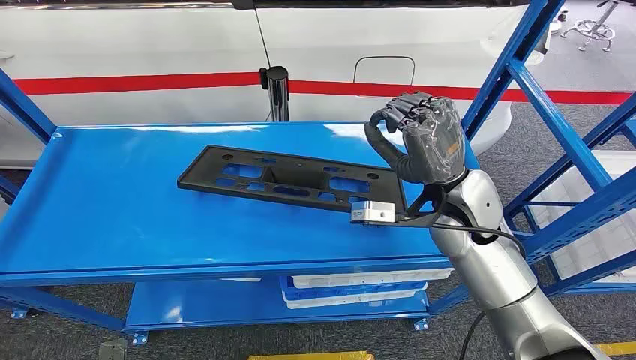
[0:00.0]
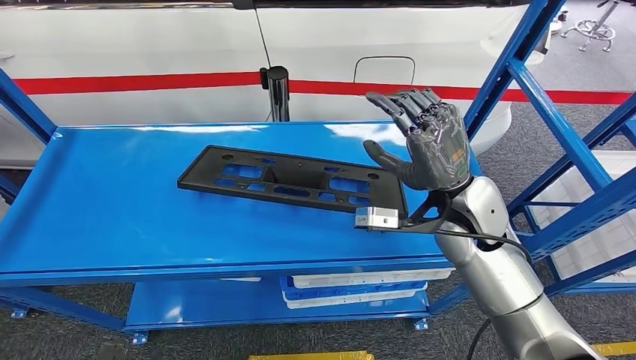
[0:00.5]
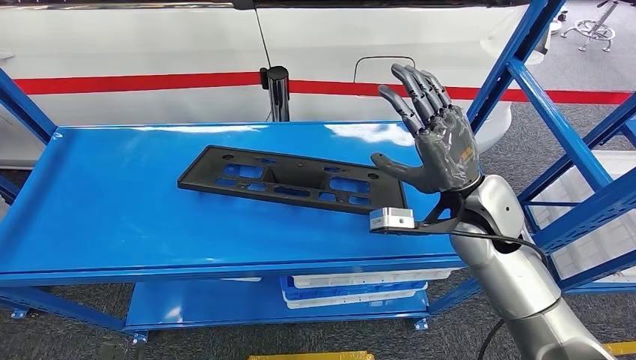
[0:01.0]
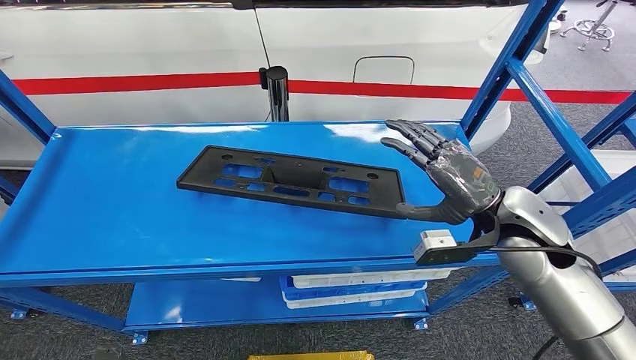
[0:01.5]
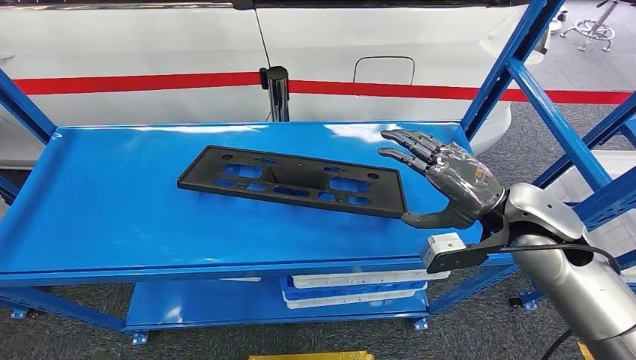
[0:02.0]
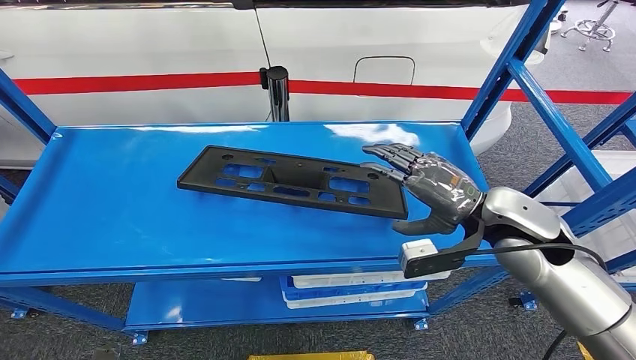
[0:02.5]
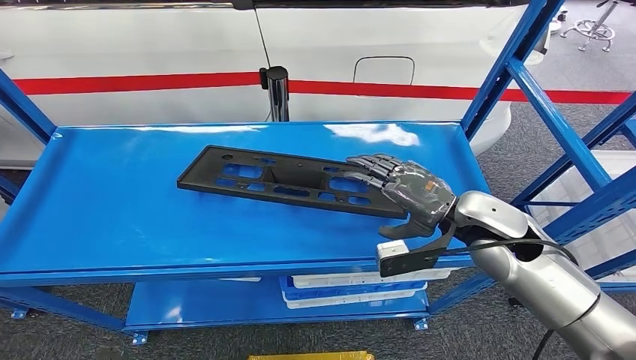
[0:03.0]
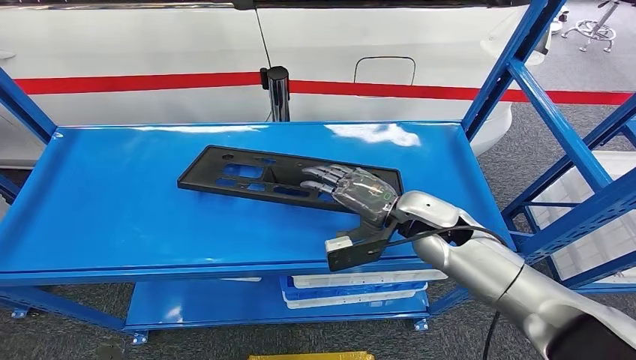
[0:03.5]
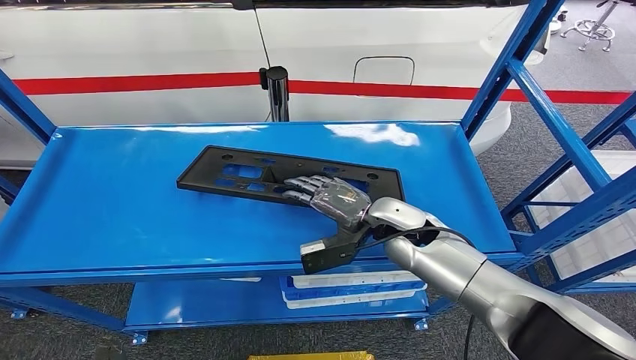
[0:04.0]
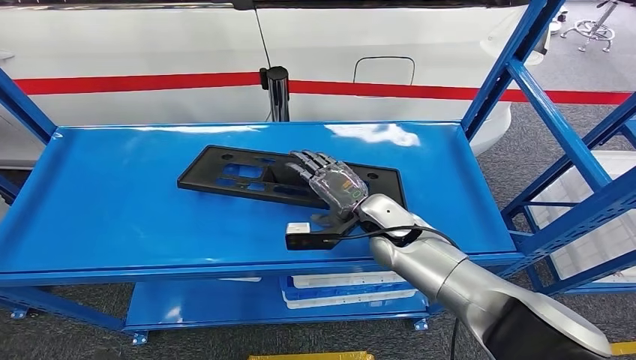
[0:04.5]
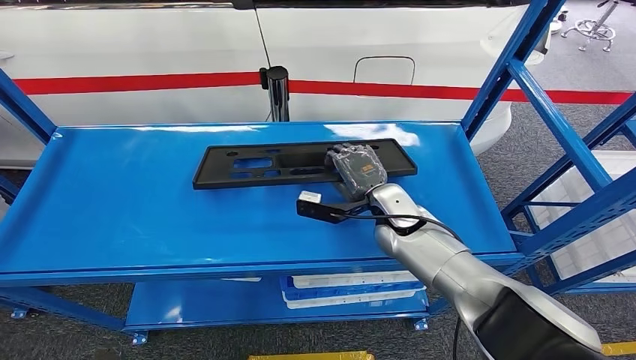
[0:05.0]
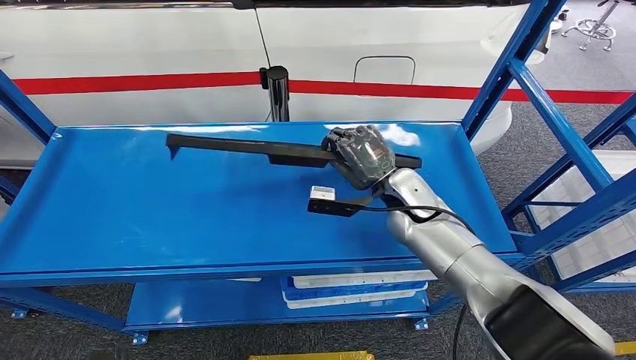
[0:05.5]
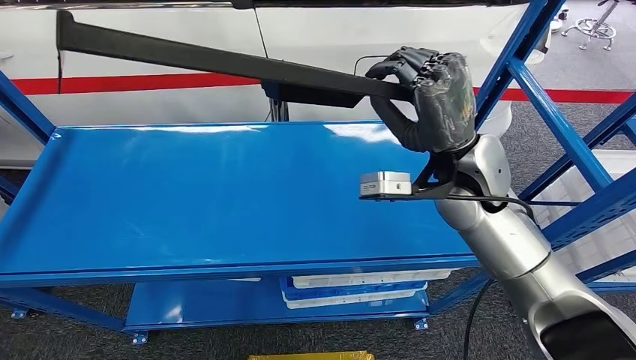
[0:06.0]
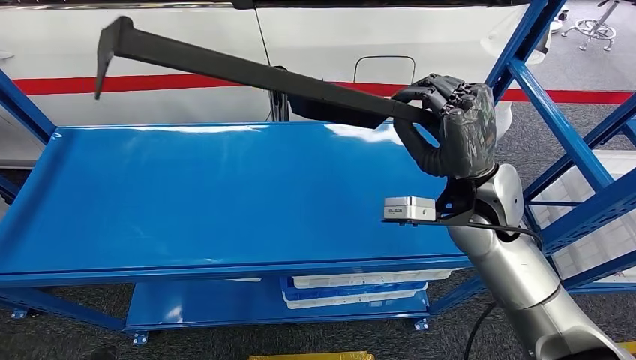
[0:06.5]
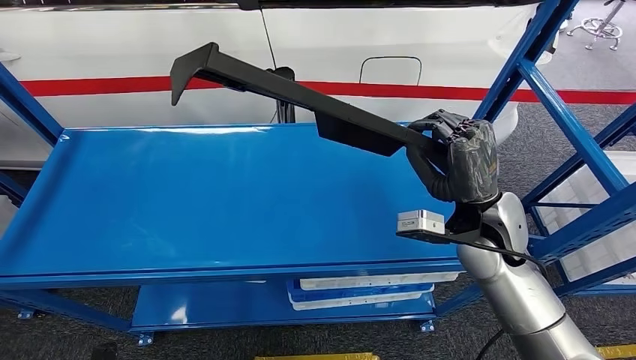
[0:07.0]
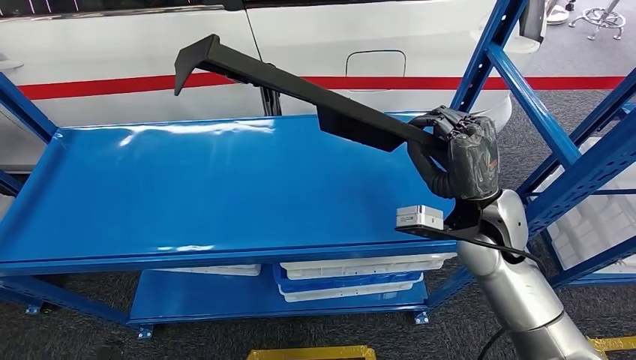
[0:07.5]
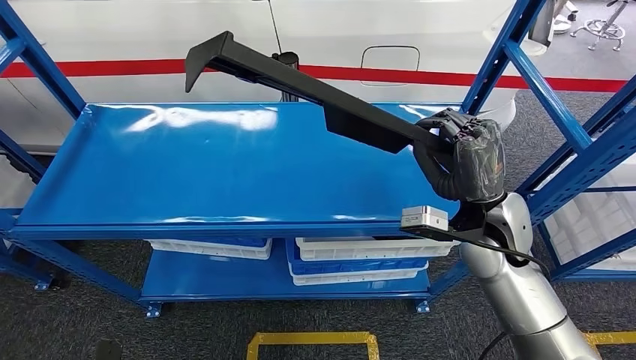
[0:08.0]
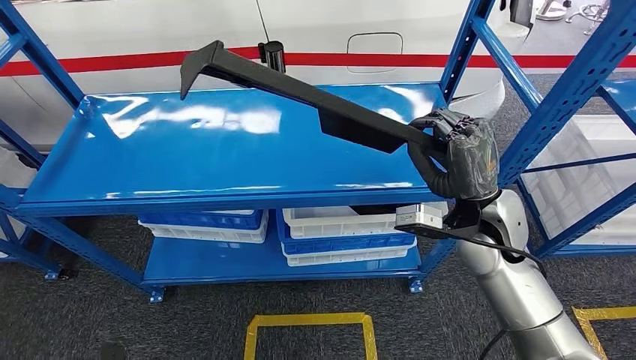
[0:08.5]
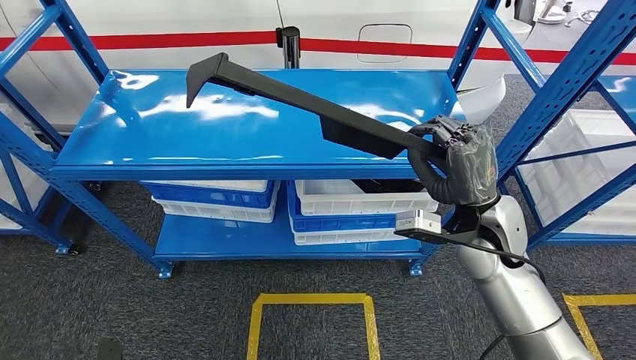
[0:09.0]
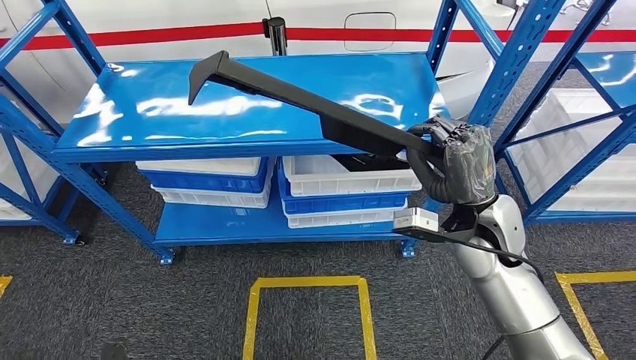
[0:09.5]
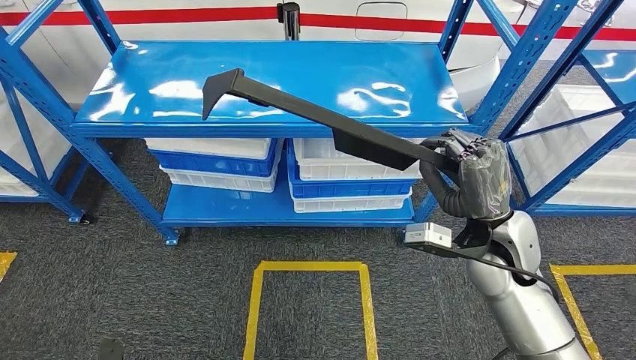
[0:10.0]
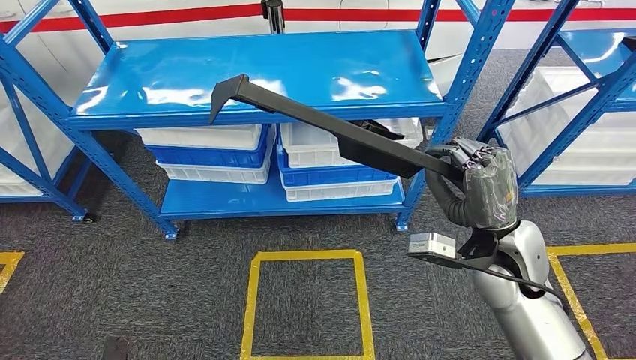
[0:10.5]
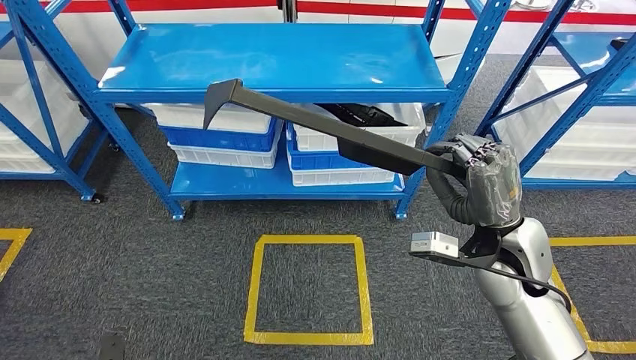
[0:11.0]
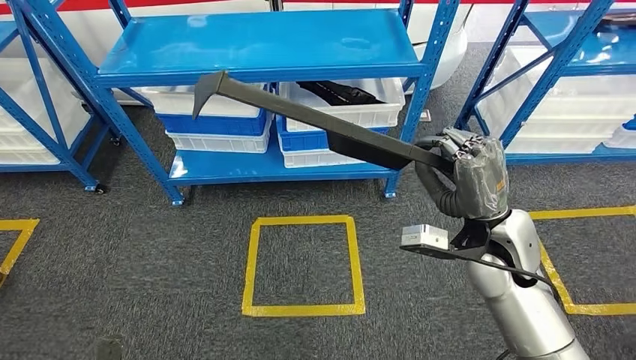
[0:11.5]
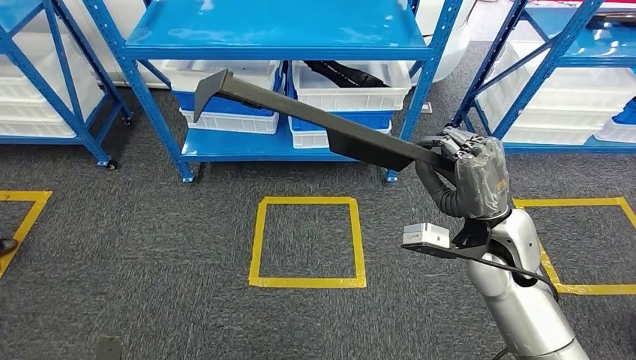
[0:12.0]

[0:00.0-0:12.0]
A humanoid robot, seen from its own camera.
Step, 0:00.0 to 0:08.0: Pick up the large material from the shelf.
0:02.0 to 0:04.0: The right hand heads to the left and downward, covering roughly 15 cm.

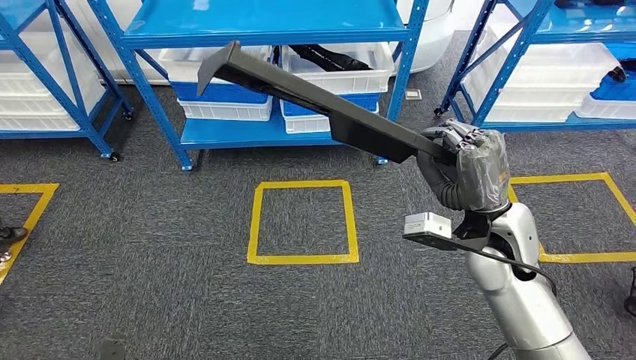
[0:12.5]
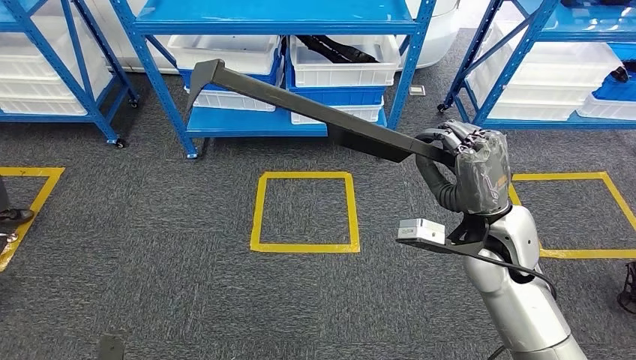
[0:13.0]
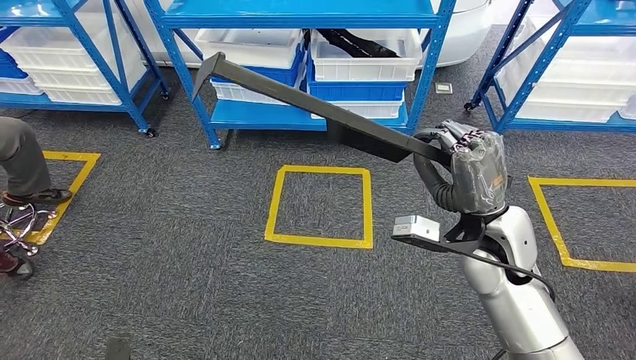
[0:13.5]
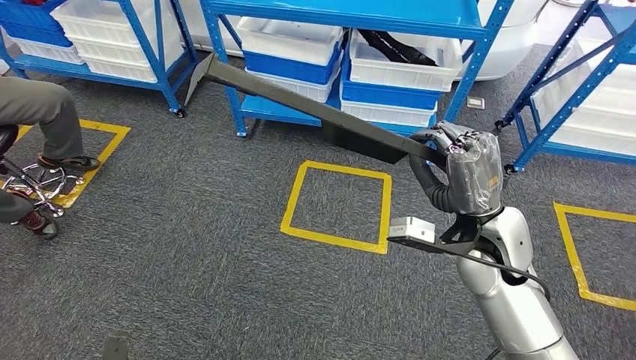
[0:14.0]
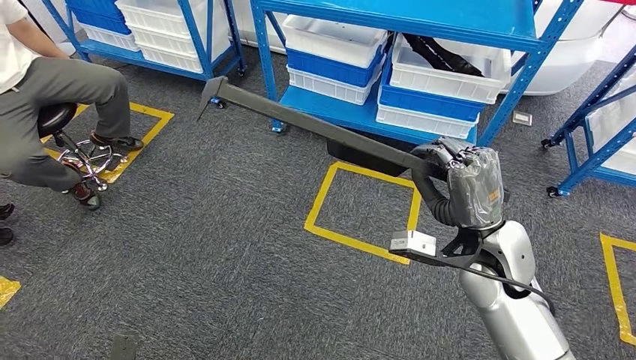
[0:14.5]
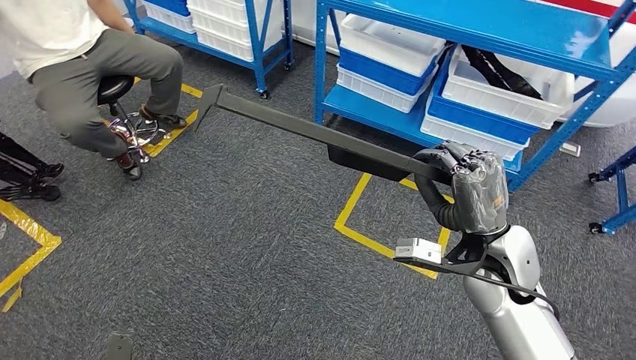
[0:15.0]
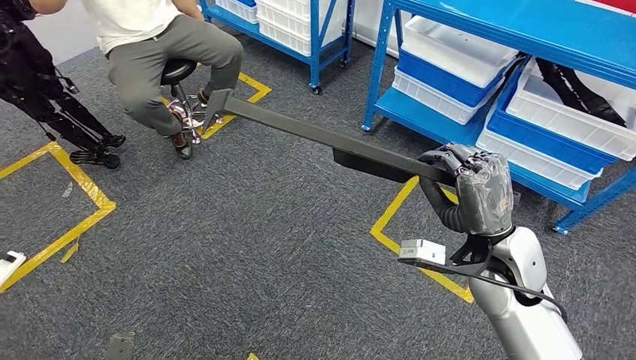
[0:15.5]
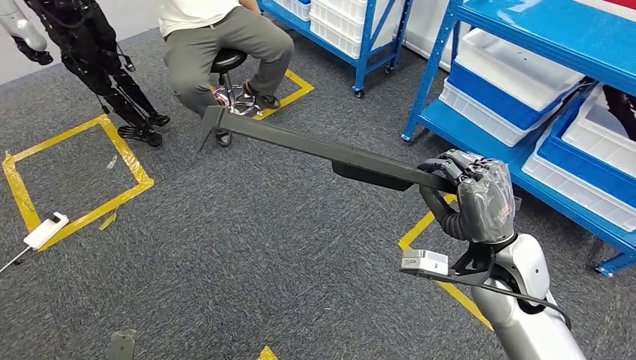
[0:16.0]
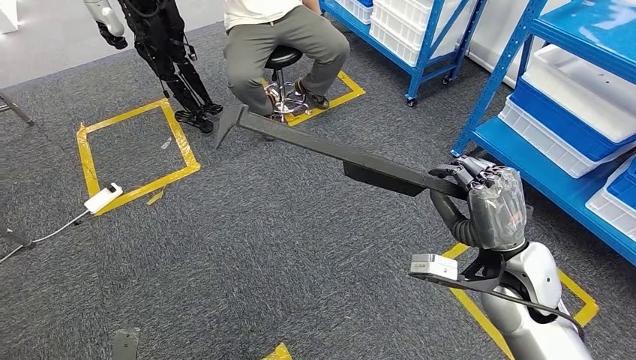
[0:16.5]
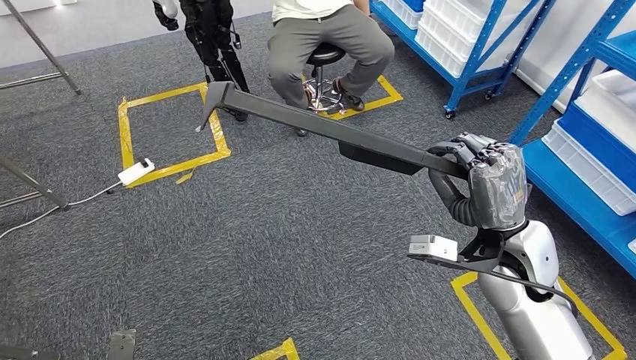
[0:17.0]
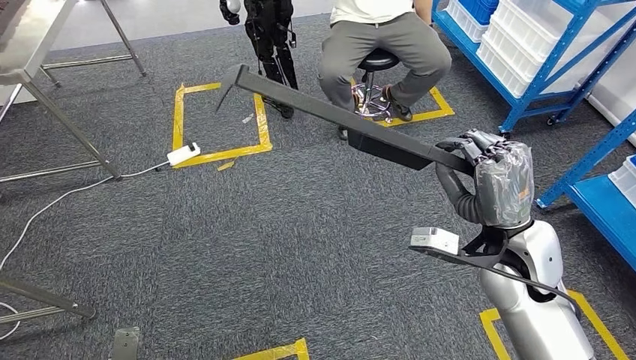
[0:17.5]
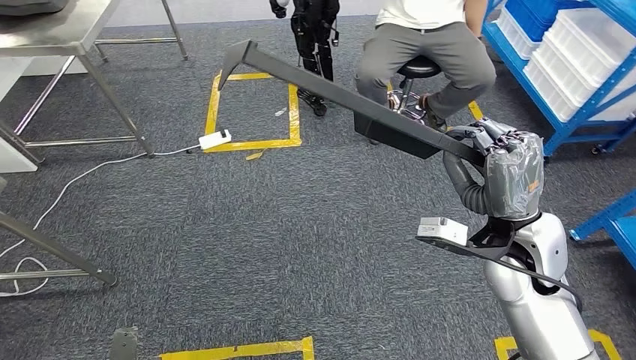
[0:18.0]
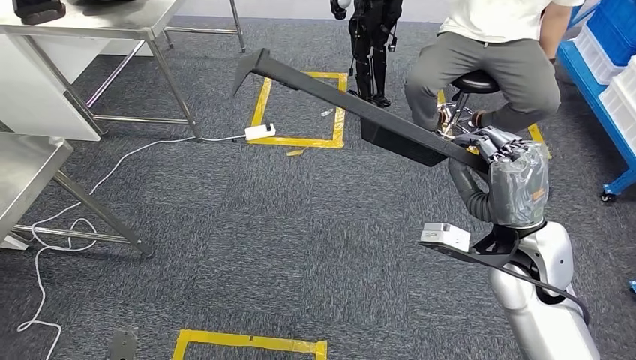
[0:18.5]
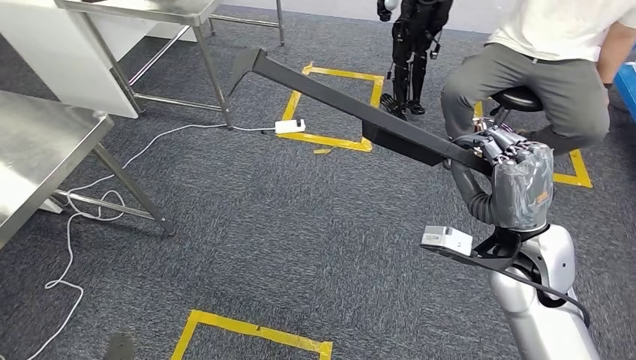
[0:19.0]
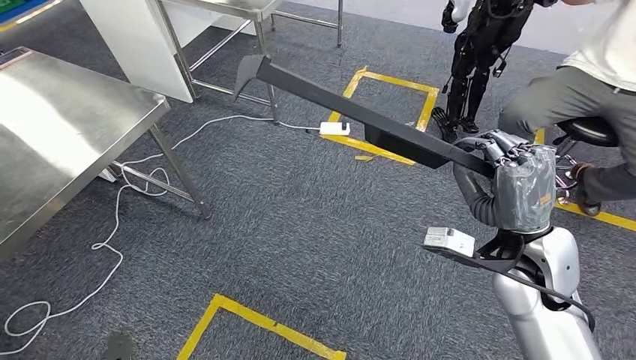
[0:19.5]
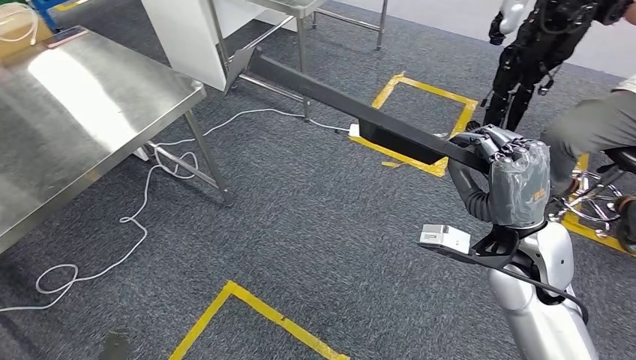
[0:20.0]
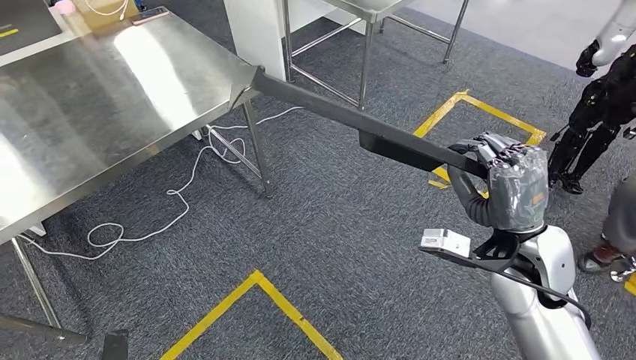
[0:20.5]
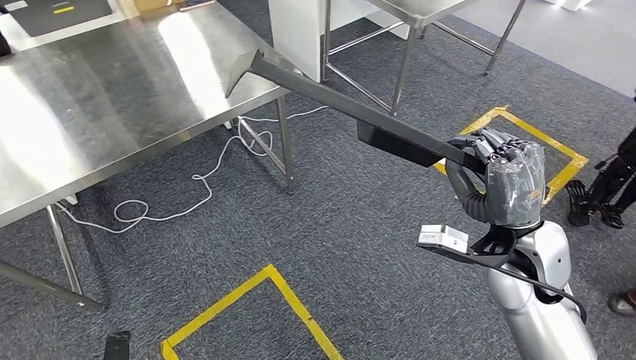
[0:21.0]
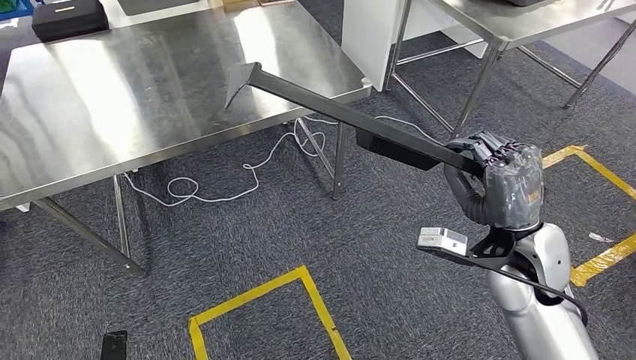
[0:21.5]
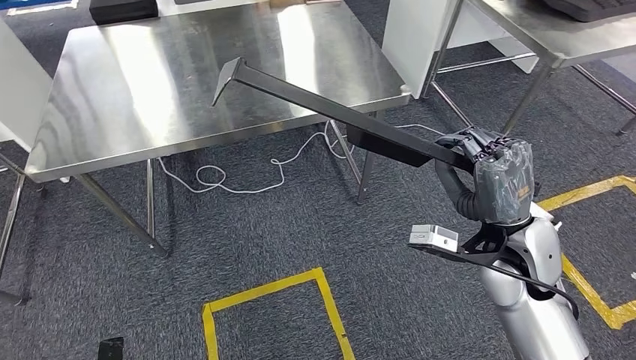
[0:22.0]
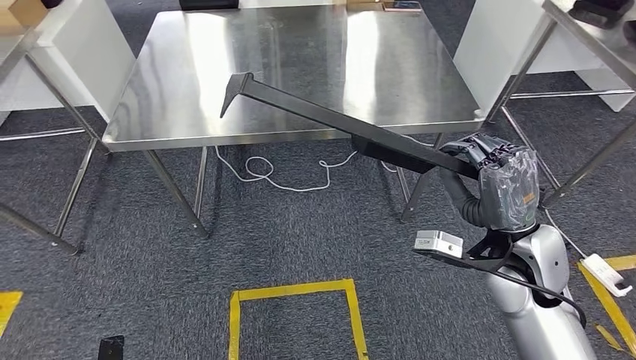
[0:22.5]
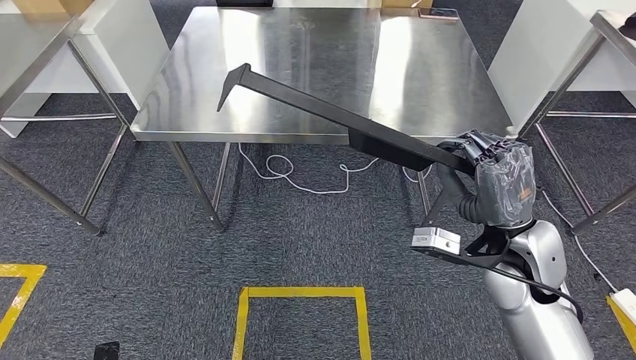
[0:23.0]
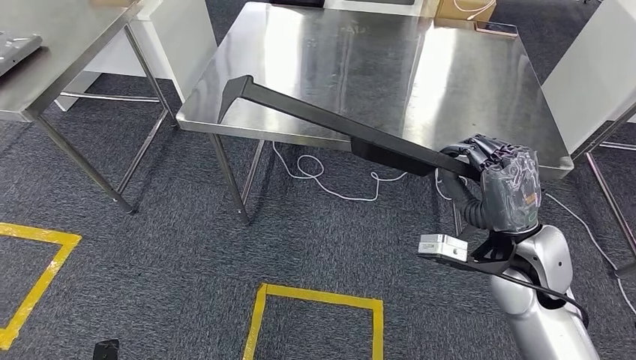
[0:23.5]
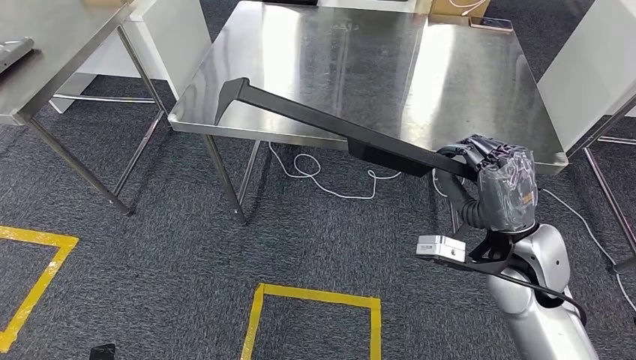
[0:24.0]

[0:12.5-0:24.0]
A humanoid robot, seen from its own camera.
Step, 0:12.5 to 0:21.5: Move the large material to the workbench.
